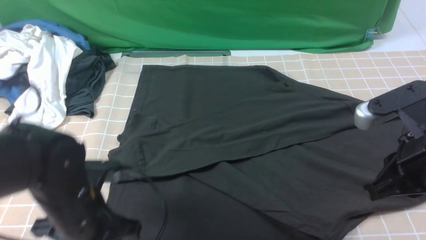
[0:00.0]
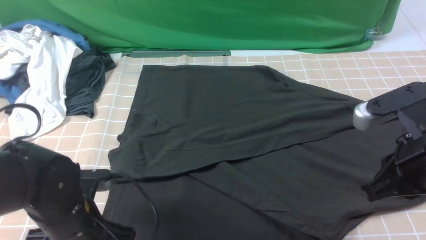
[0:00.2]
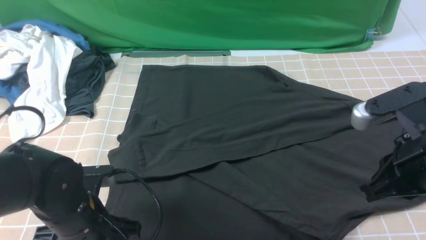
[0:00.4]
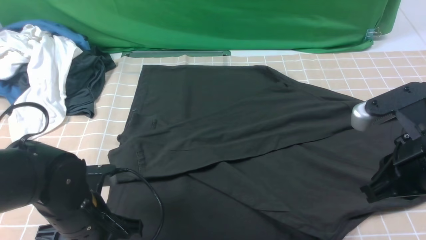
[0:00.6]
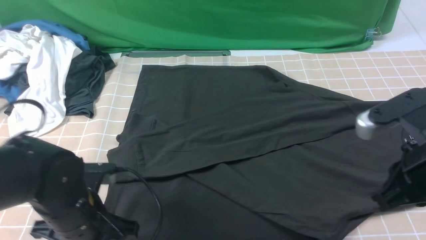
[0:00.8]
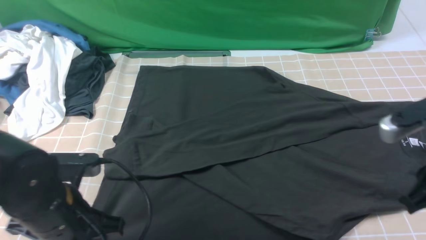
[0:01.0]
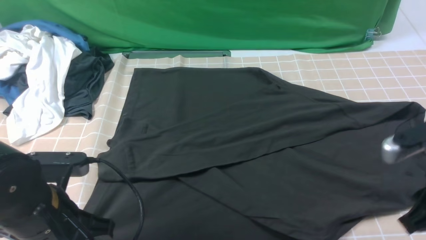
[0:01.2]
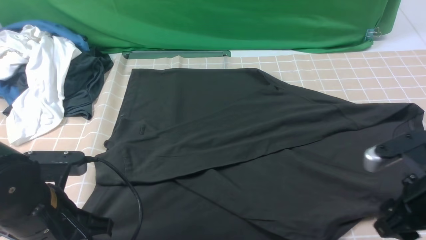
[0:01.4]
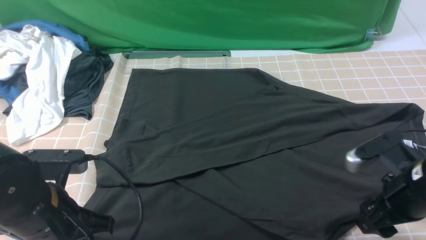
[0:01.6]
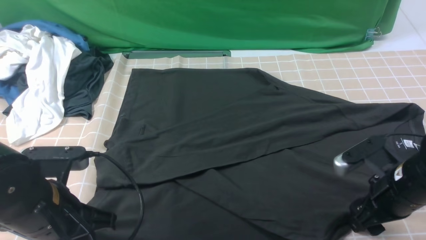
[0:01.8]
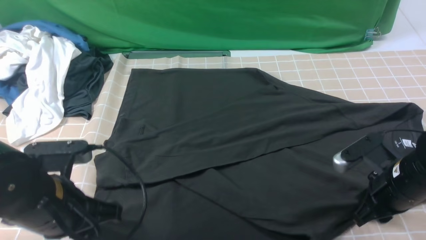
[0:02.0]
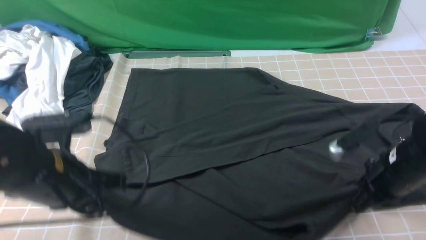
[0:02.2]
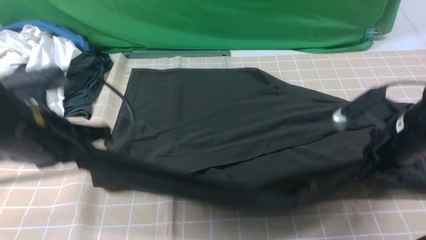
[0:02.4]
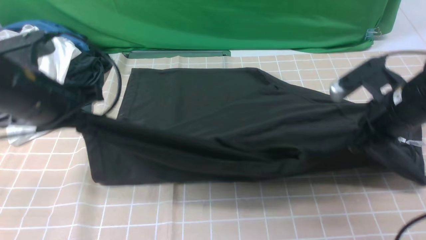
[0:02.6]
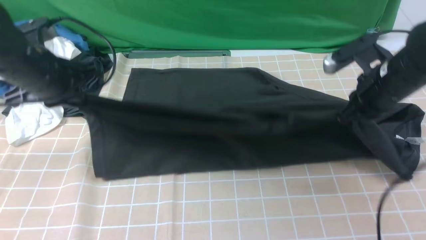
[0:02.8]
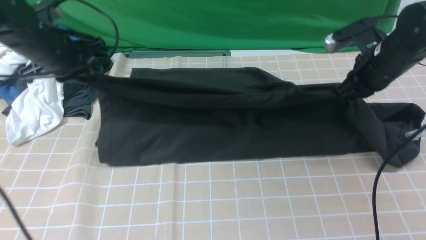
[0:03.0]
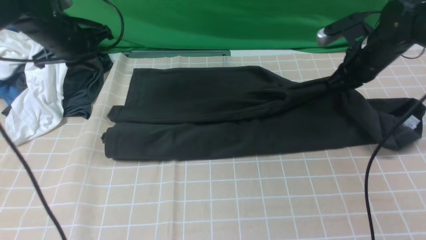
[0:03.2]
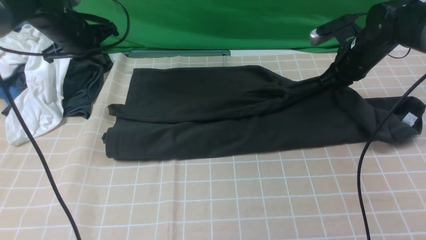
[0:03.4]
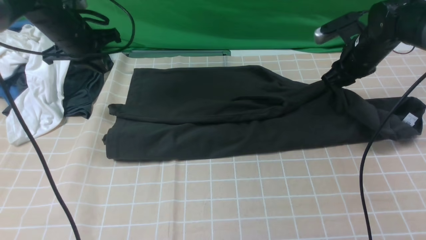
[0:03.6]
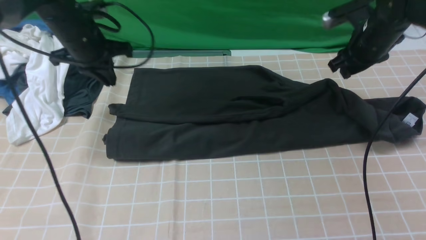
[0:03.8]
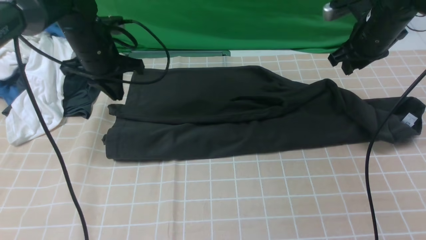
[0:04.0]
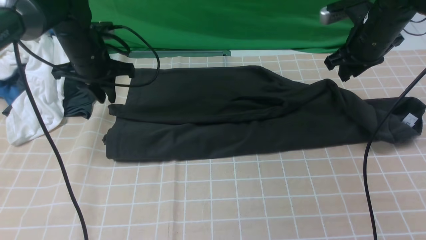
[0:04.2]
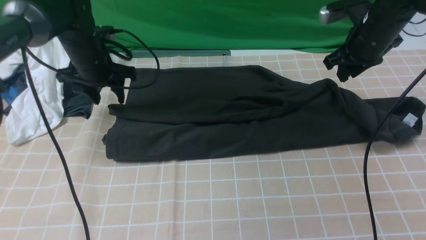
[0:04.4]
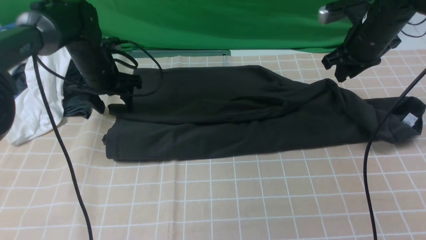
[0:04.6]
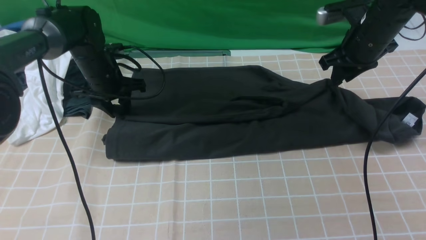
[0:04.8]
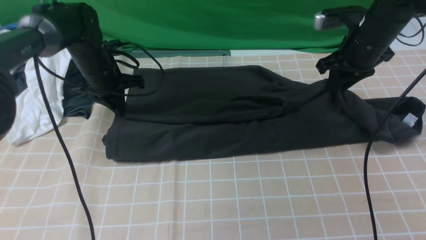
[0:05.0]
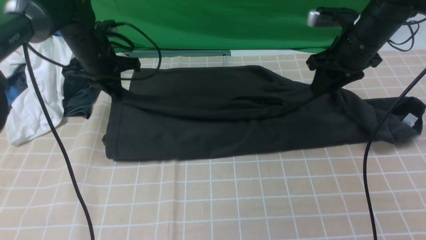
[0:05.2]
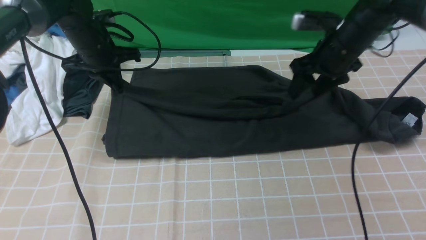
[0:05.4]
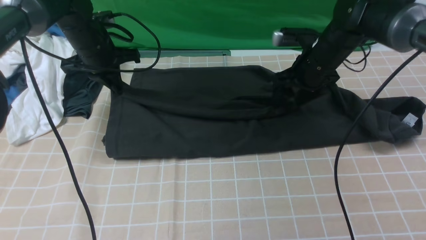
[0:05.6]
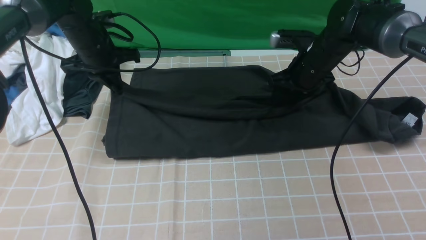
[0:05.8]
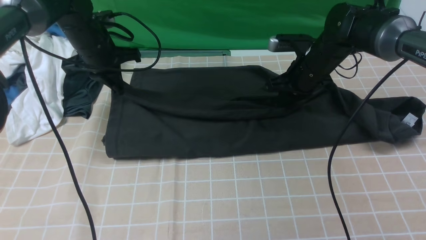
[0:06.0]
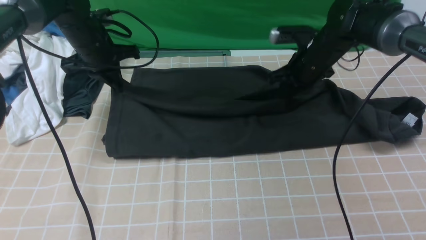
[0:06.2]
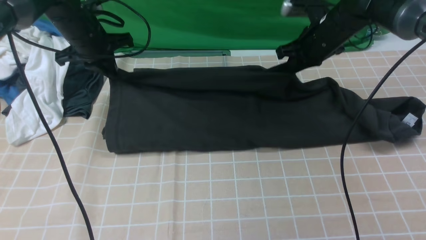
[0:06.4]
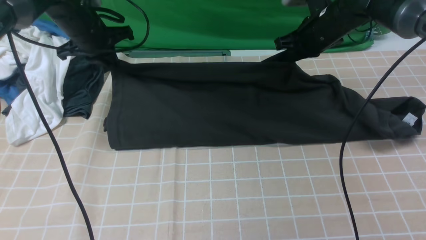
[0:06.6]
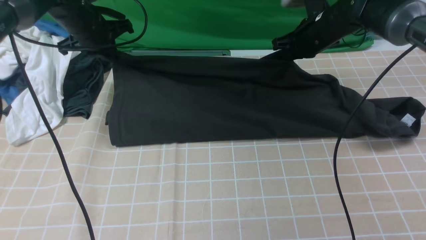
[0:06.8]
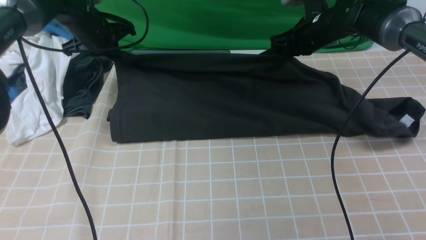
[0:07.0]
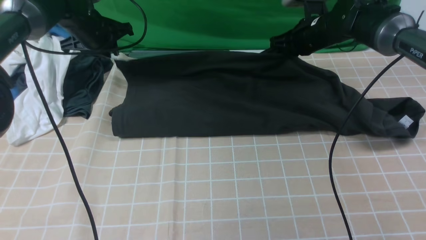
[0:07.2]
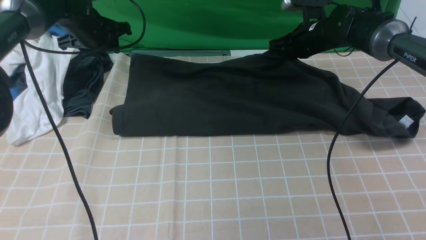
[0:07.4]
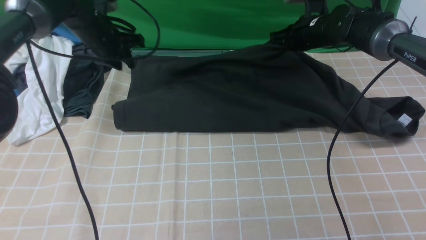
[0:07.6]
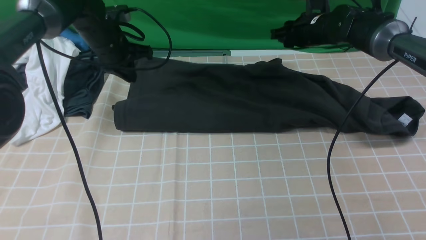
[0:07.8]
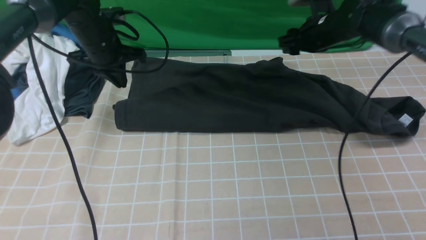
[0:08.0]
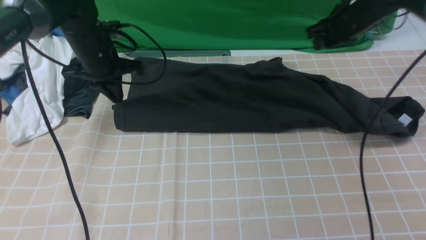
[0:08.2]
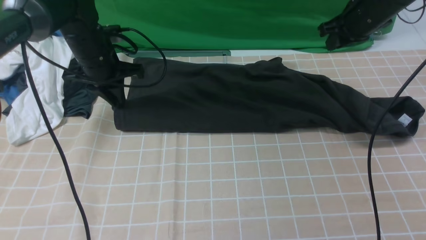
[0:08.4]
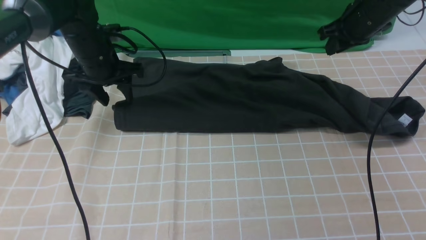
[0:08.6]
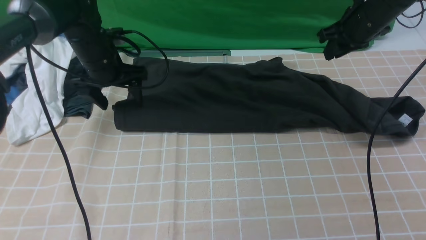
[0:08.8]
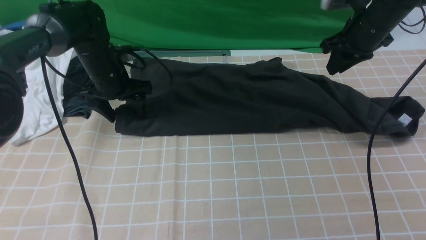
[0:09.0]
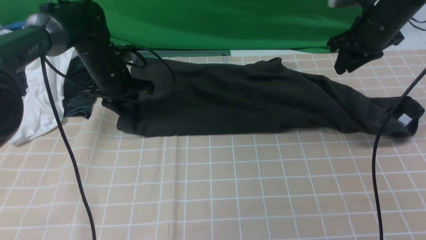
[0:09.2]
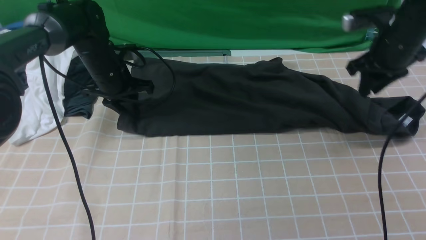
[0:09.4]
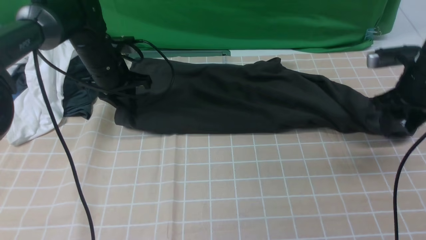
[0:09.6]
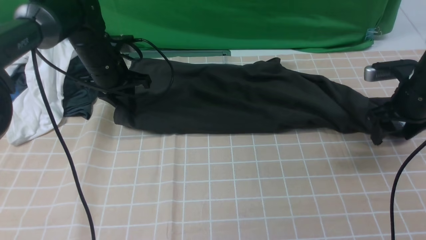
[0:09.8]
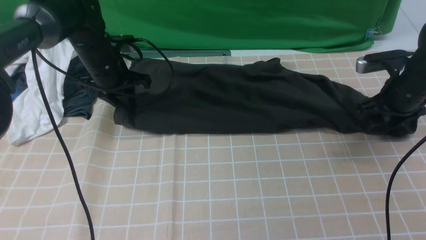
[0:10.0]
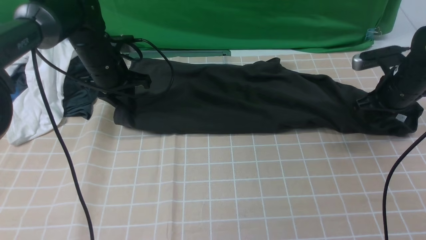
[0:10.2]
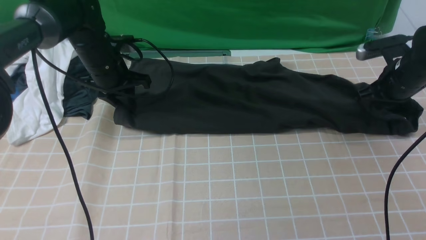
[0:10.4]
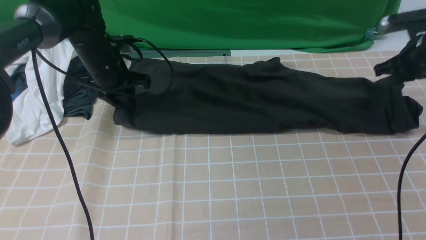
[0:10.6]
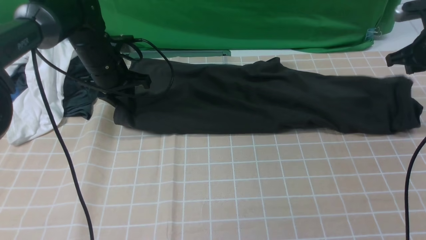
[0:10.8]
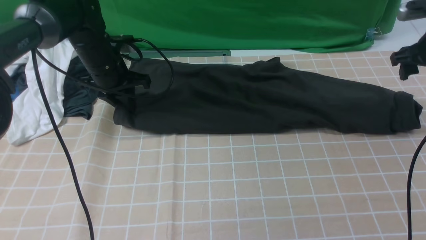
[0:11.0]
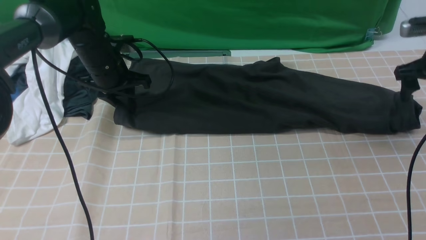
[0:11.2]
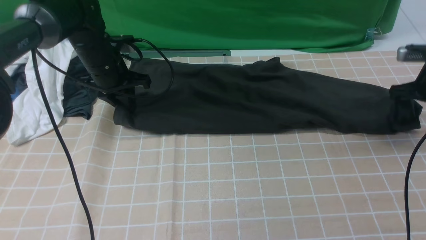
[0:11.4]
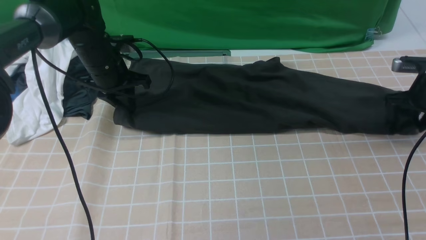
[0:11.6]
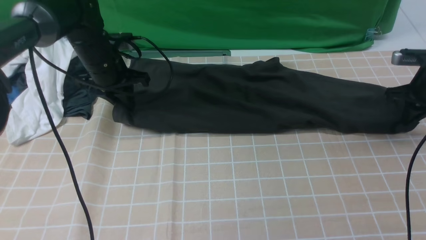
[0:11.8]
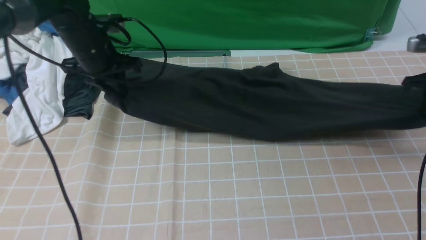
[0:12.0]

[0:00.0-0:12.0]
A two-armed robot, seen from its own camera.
Step, 0:00.0 to 0:01.8: use both arms simultaneously to clamp the lower edge of the clothing fabric.
Step, 0:02.2 to 0:07.8: use both arms to drag the lower edge of the fabric forward and fold it over the upper edge.
0:00.0 to 0:01.6: The left gripper moves roughly 5 cm, and closes up; the right gripper goes some 10 cm downward, and opens up.
0:01.6 to 0:03.0: The grippers both shift forward by roughly 20 cm. The right gripper closes up.
0:03.0 to 0:04.4: The left gripper heads downward and forward, covering some 10 cm, and opens; the right gripper changes place by roughly 5 cm.
0:04.4 to 0:06.0: The left gripper closes; the right gripper goes some 10 cm to the left and downward, and opens and closes again.
0:06.0 to 0:07.6: The right gripper shifts about 5 cm forward.
0:07.6 to 0:09.0: The right gripper is displaced backward, upward and to the right by some 10 cm, while the left gripper ends up about 5 cm from where it was, and opens up.
0:09.0 to 0:10.4: The left gripper closes its fingers. Meanwhile the right gripper shifts about 10 cm to the right and downward, and opens and closes again.
0:10.4 to 0:12.0: The right gripper swings up and down, some 5 cm each way, with 2 reversals, and opens, then closes again.

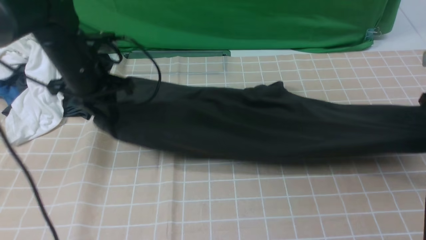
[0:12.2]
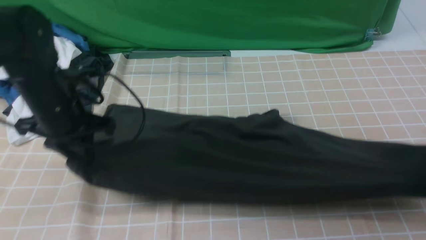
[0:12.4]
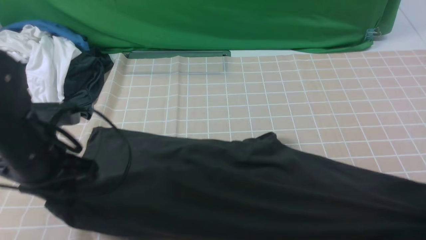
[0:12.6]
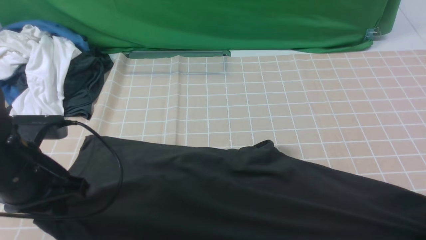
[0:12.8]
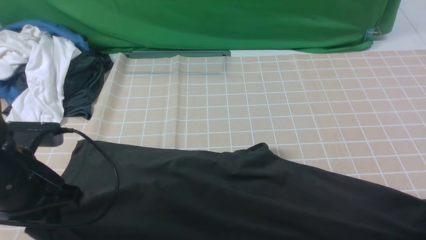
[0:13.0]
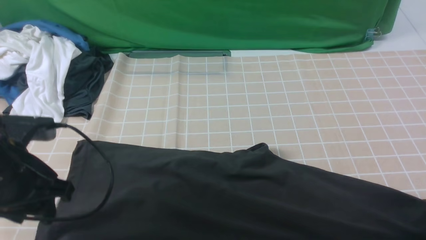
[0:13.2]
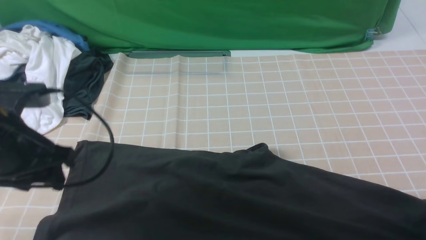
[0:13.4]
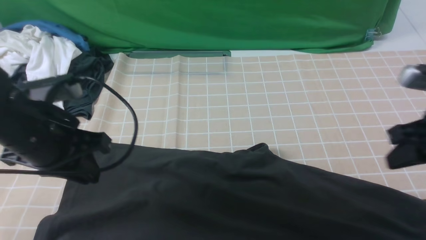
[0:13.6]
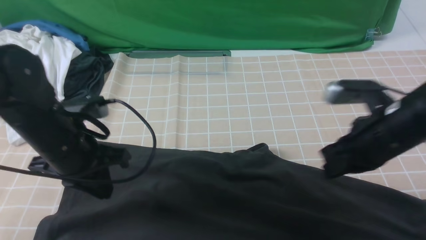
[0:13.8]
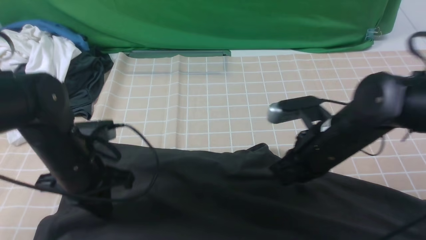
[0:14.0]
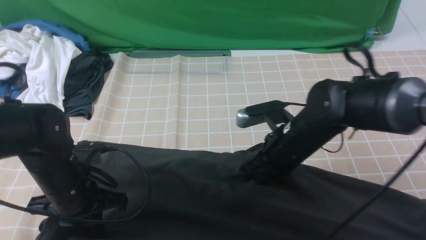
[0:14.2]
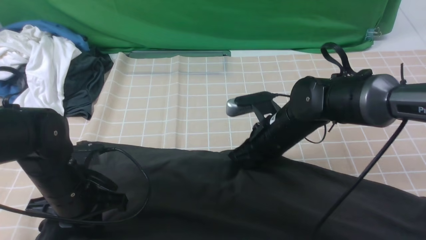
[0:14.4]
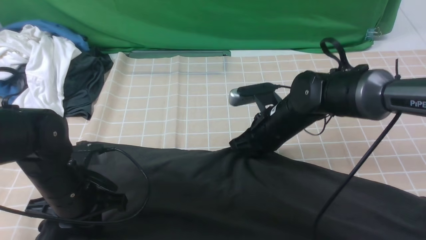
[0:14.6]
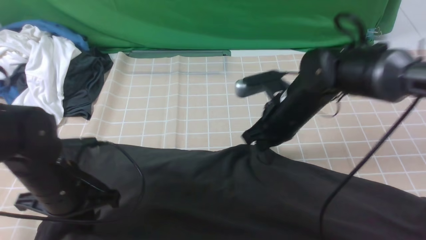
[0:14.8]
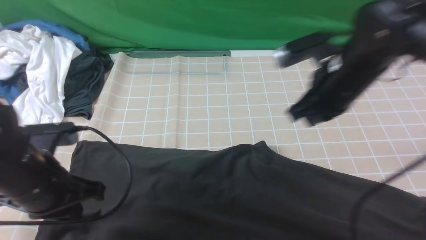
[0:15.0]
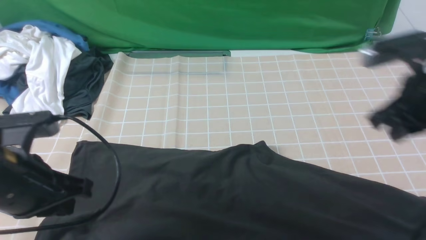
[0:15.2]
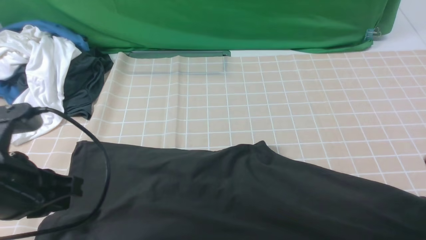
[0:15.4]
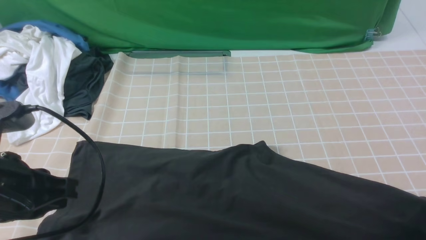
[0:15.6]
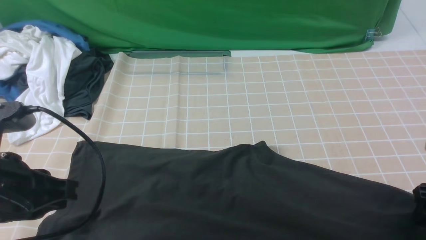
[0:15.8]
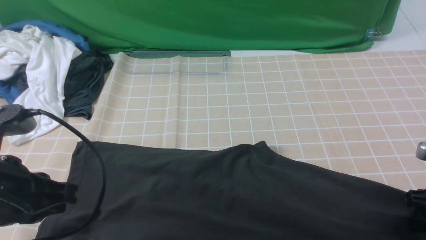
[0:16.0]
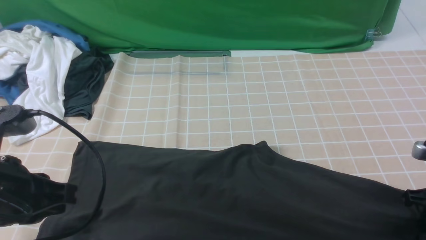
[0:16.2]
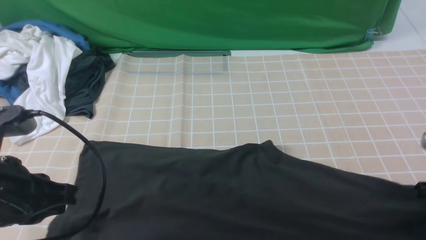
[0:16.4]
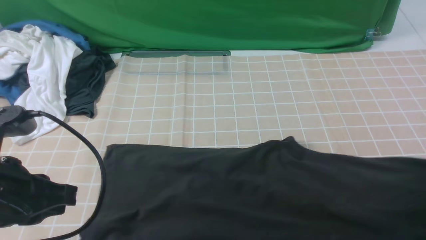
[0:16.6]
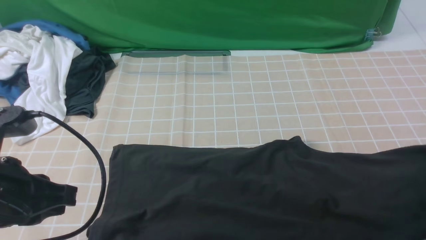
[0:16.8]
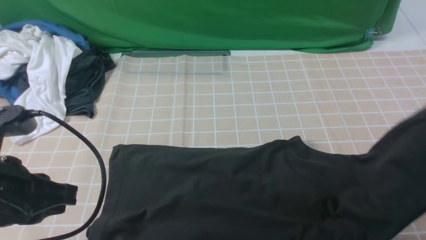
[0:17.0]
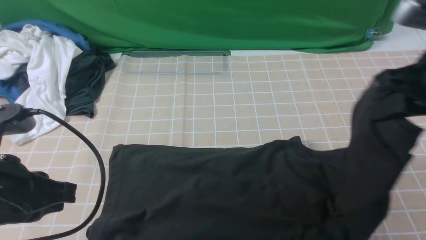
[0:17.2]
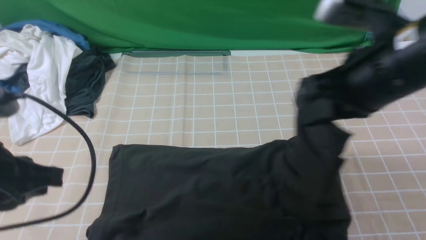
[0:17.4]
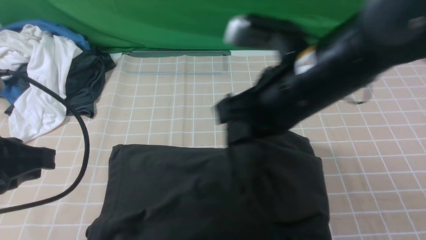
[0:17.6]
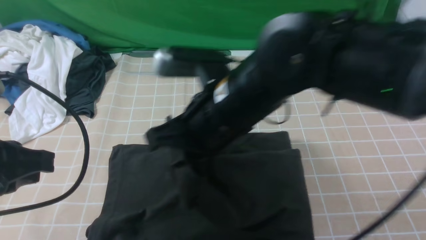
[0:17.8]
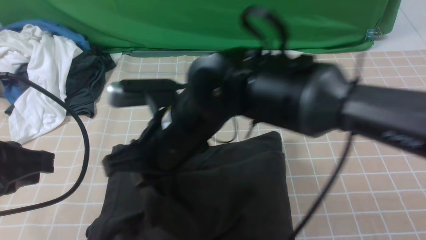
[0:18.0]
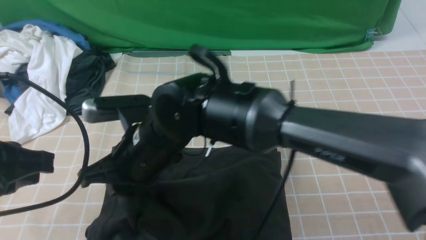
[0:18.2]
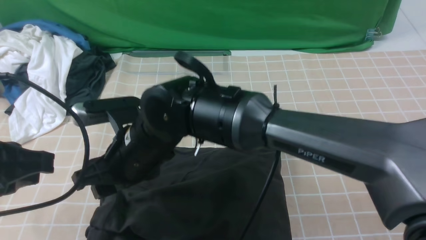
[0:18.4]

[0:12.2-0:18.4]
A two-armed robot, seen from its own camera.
Step, 0:12.2 to 0:16.2: use the right arm to clamp the right edge of the fabric.
Step, 0:16.4 to 0:18.4: use the right arm to drag the right edge of the fabric to the left and folds it over the left edge.
0:12.2 to 0:13.8: The right gripper is displaced to the left and backward by some 20 cm, and opens, then closes again. Meanwhile the left gripper travels backward by approximately 10 cm, and opens, then closes once more.
0:13.8 to 0:15.4: The left gripper is displaced backward and upward by approximately 10 cm. Meanwhile the right gripper moves to the right, roughly 10 cm, and opens its fingers.
0:15.4 to 0:16.8: The right gripper travels downward and back again, some 10 cm each way, and closes up.
0:16.8 to 0:18.4: The right gripper travels to the left by about 40 cm, and opens its fingers.
